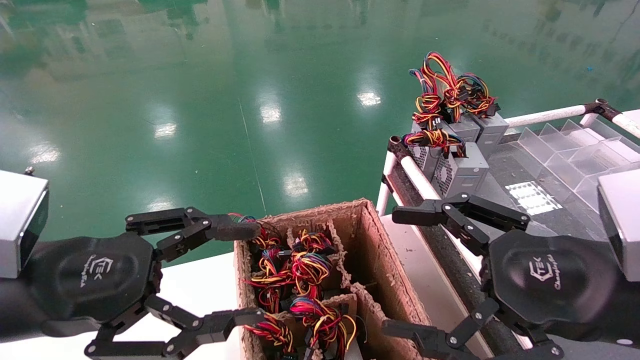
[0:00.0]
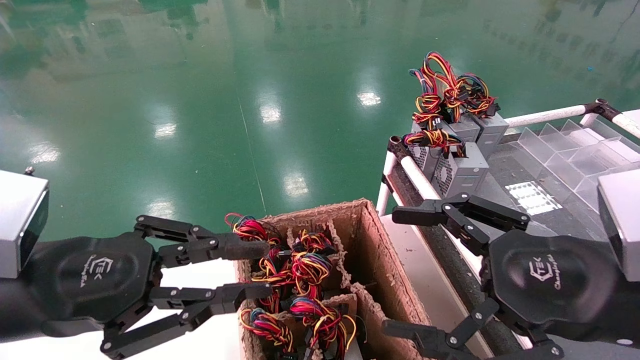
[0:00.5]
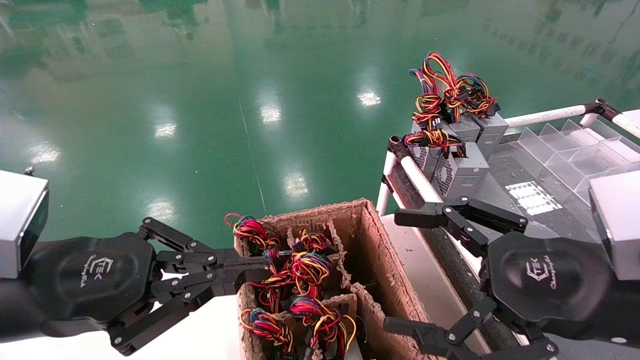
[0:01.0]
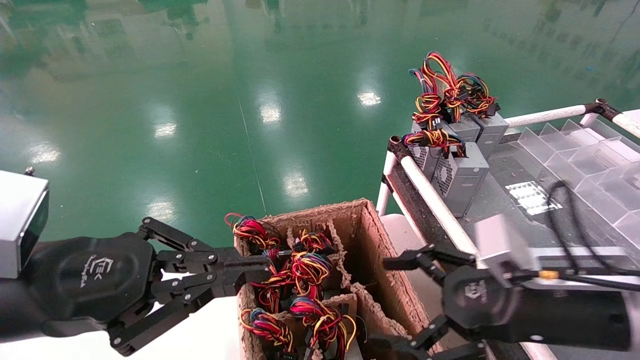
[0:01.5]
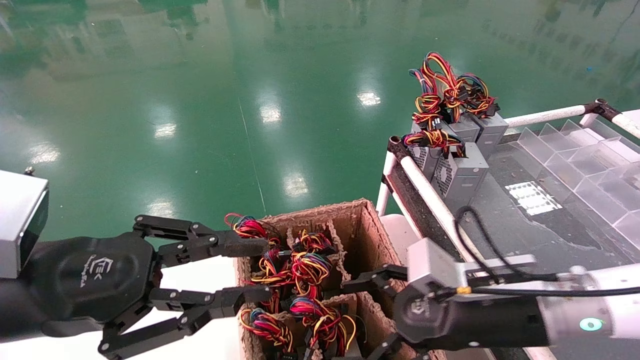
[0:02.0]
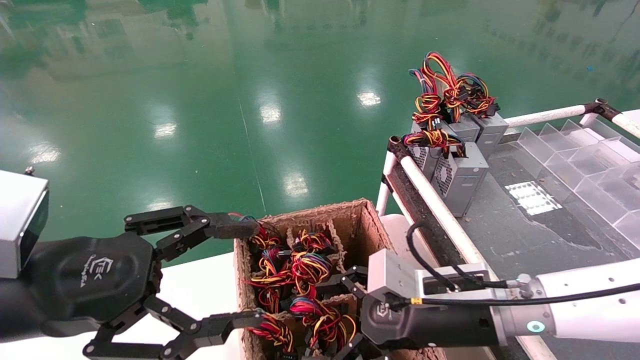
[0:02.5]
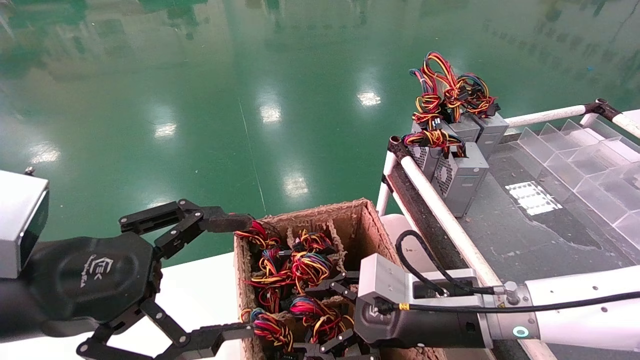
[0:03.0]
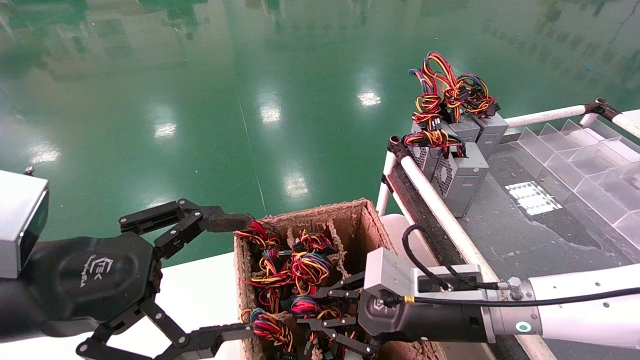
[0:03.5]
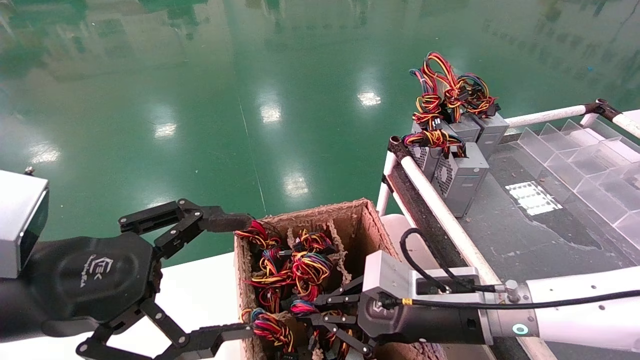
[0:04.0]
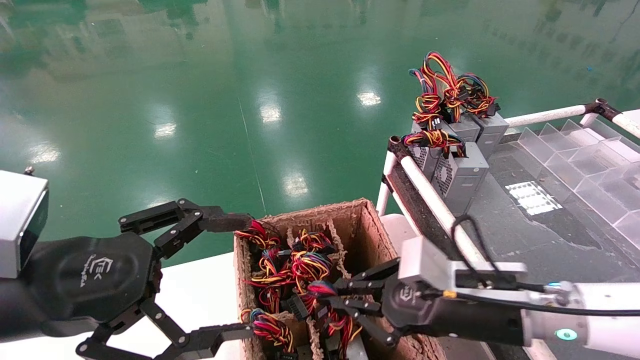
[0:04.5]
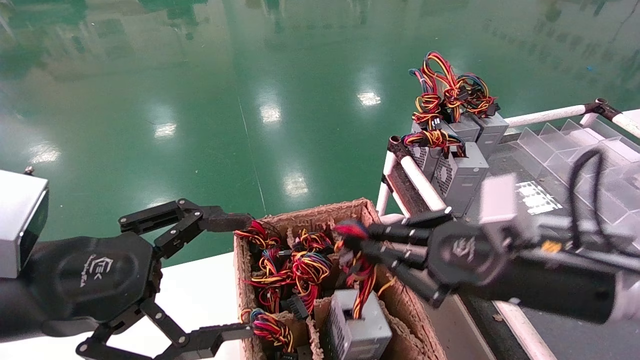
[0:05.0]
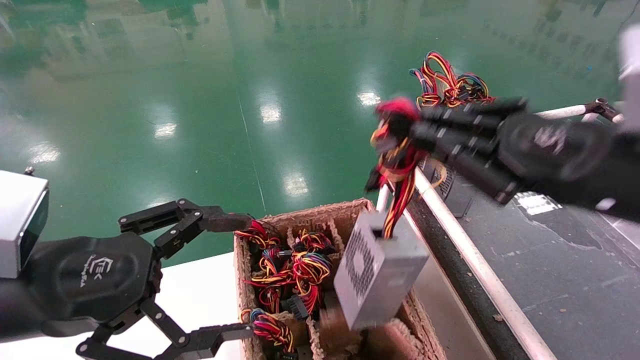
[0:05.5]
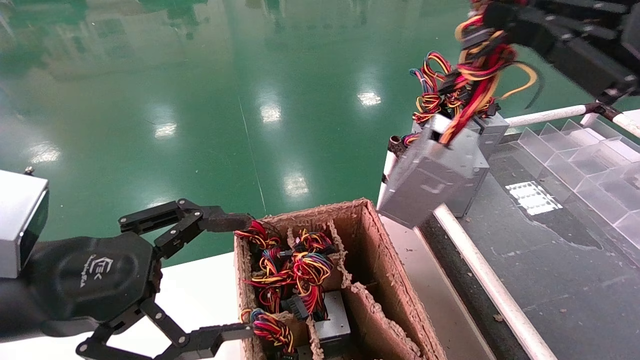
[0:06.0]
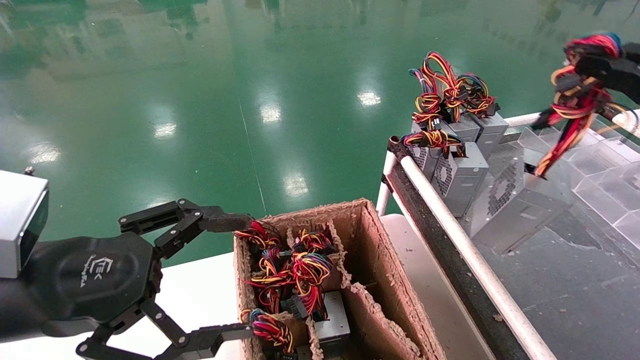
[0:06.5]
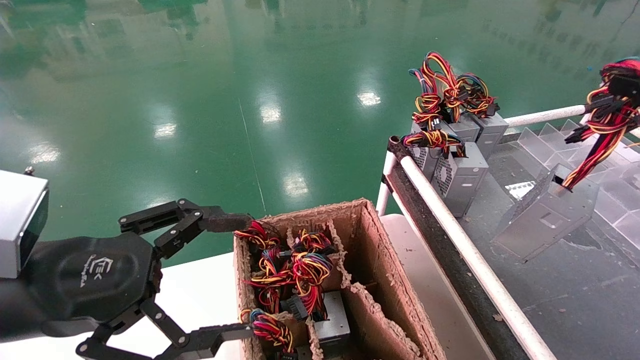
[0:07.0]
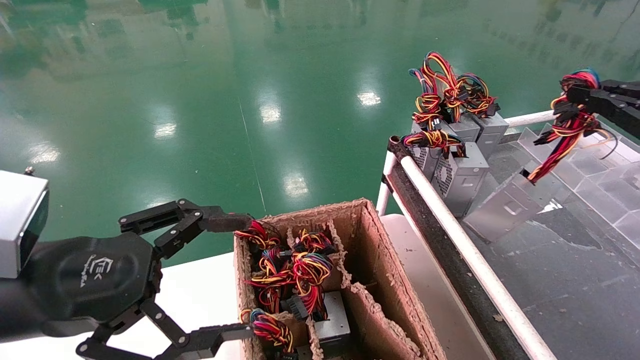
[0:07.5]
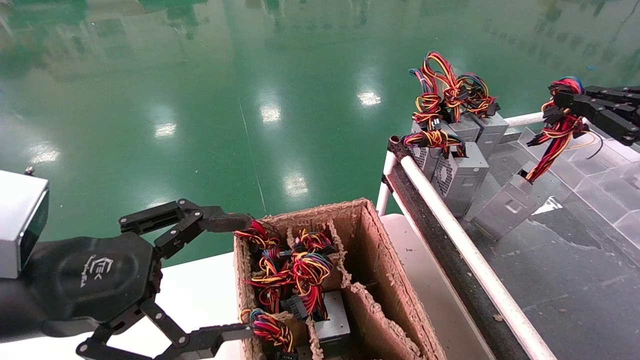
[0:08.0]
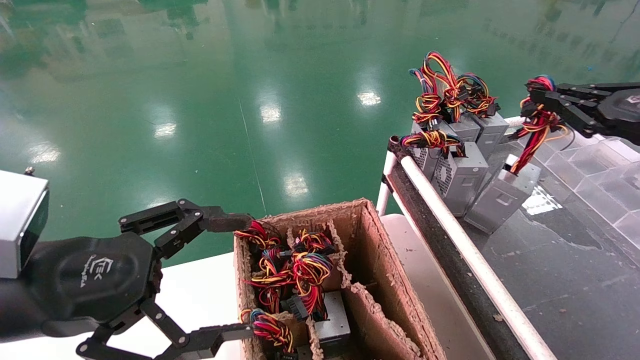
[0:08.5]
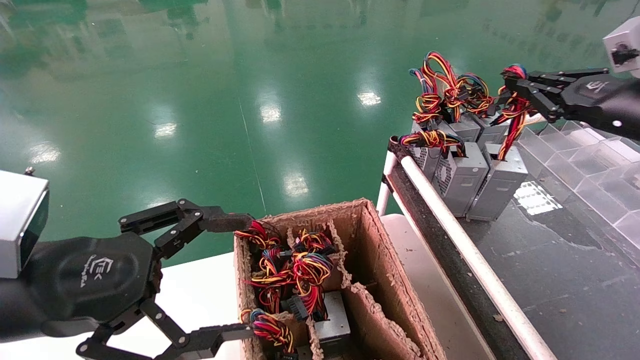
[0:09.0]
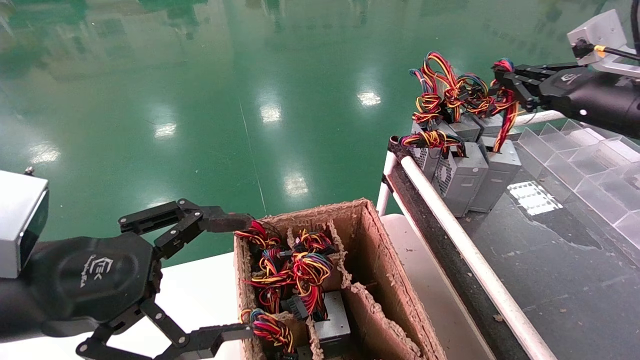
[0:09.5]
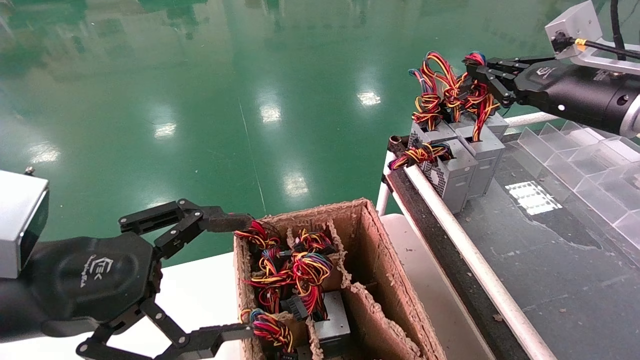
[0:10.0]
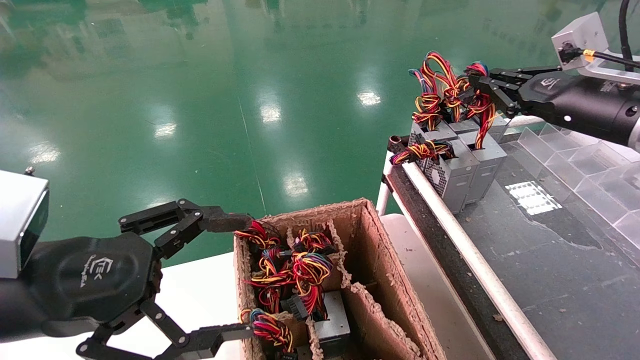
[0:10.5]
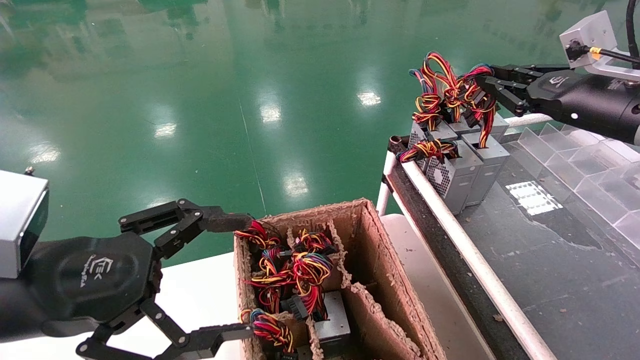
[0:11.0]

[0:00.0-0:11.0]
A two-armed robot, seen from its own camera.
Step, 0:01.5 to 0:03.5: Grab and lift the power supply from the large box.
Step, 0:04.0 to 0:10.5: Place the power supply on the operating table.
0:00.0 to 0:02.0: The left gripper closes. Meanwhile the right gripper goes roughly 15 cm forward, downward and to the left.
0:02.0 to 0:03.5: The right gripper ends up some 5 cm from where it was, and closes its fingers; the left gripper opens its fingers.
0:03.5 to 0:05.5: The right gripper travels upward, to the right and backward by some 20 cm.
0:05.5 to 0:07.5: The right gripper travels to the right by some 20 cm.
0:07.5 to 0:09.0: The right gripper travels forward and to the left by about 10 cm.
0:09.0 to 0:11.0: The grippers stay close to where they were, moving slightly.

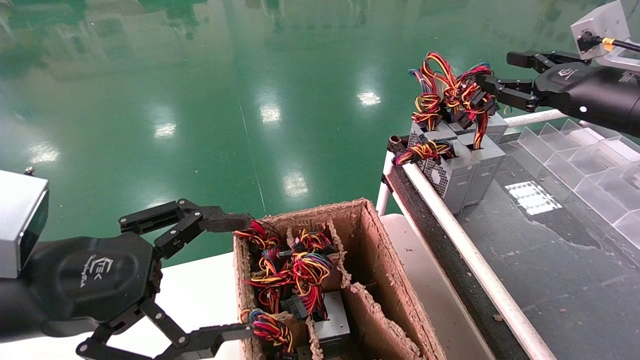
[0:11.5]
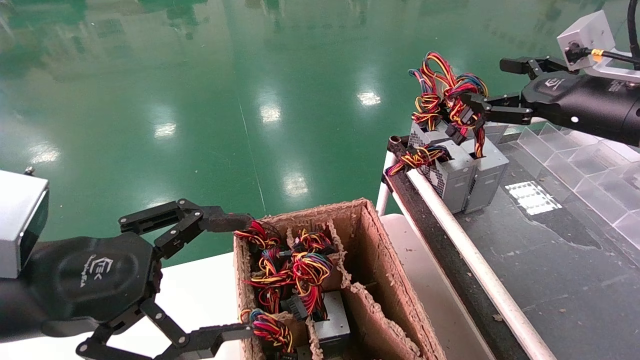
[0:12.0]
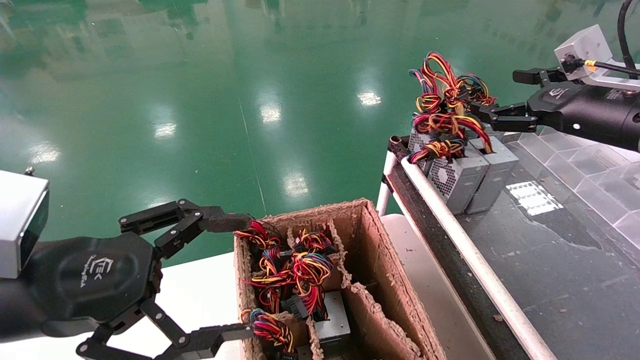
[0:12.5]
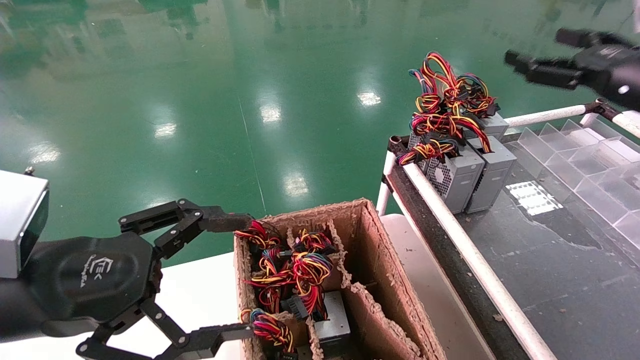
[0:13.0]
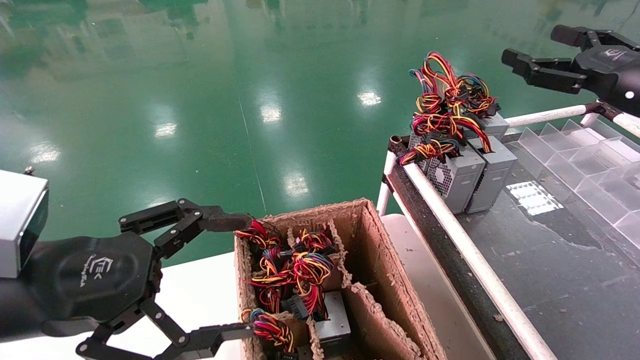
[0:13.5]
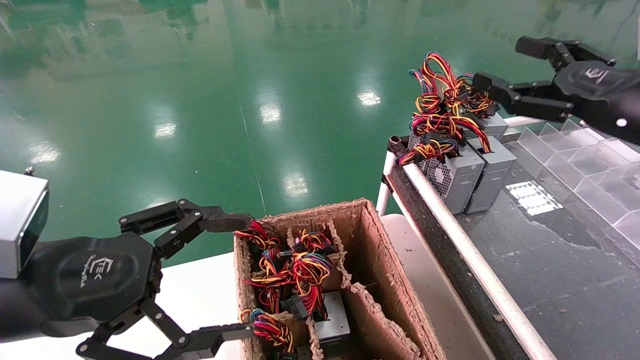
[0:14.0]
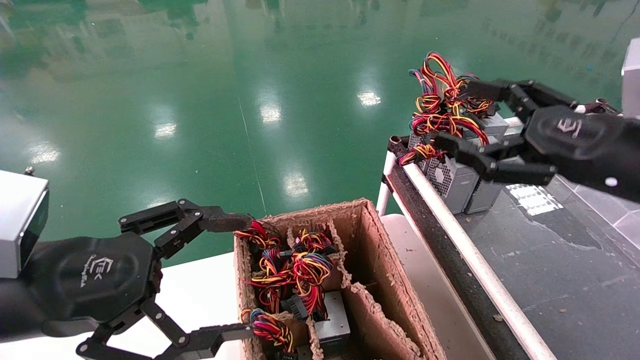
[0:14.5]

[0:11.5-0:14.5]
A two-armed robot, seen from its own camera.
0:11.5 to 0:13.0: The right gripper opens its fingers.
0:13.0 to 0:14.5: The right gripper moves backward and to the left, about 10 cm.
